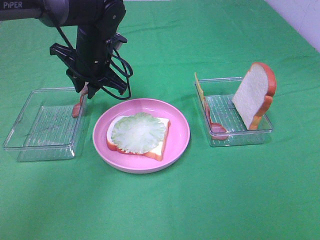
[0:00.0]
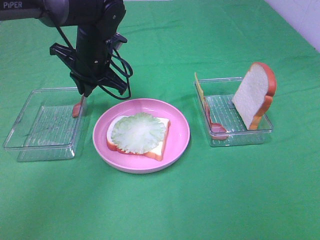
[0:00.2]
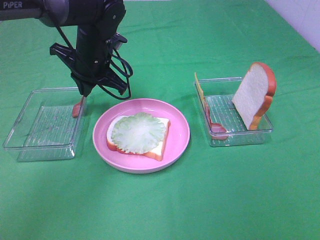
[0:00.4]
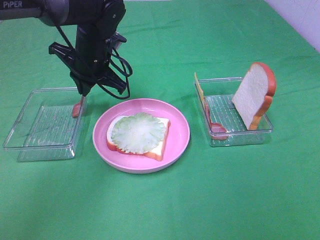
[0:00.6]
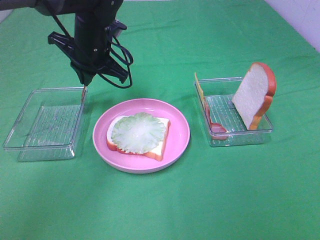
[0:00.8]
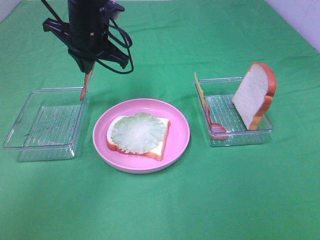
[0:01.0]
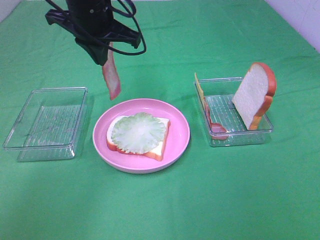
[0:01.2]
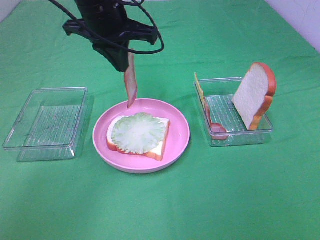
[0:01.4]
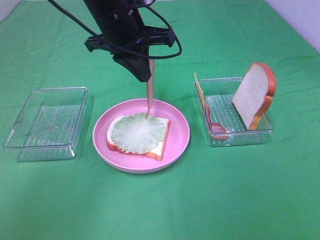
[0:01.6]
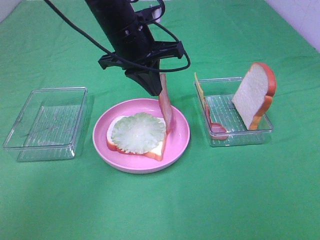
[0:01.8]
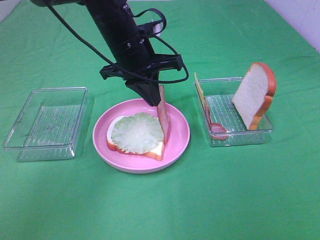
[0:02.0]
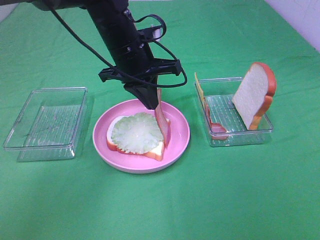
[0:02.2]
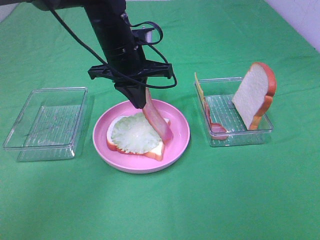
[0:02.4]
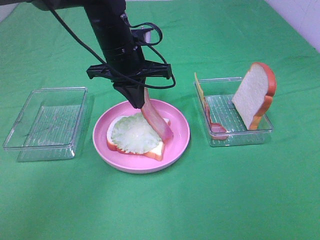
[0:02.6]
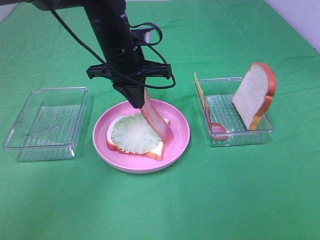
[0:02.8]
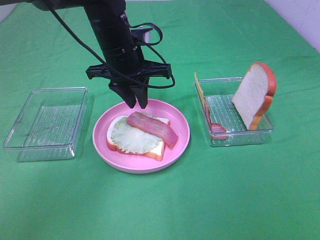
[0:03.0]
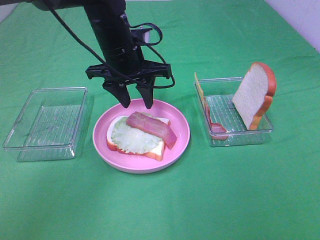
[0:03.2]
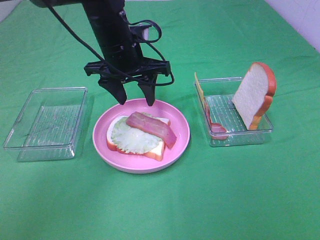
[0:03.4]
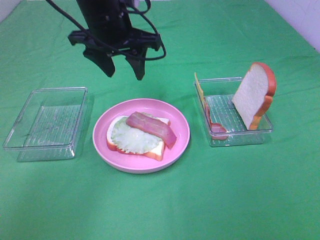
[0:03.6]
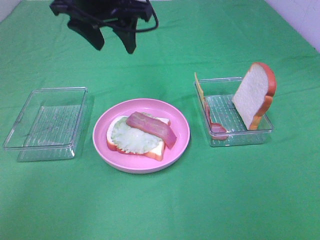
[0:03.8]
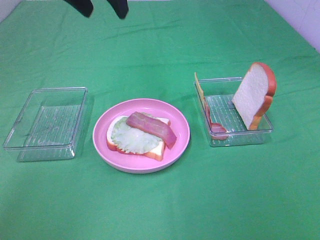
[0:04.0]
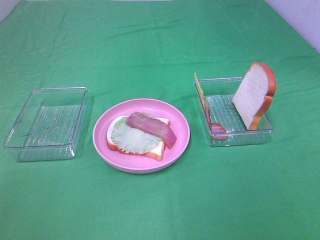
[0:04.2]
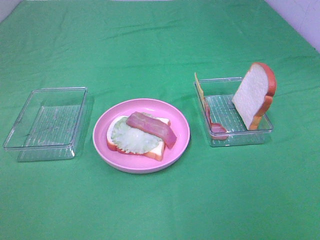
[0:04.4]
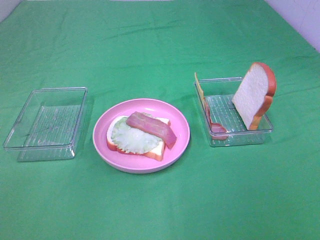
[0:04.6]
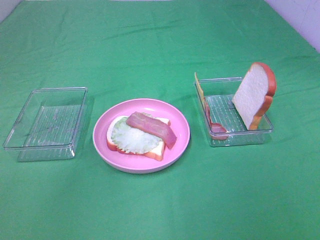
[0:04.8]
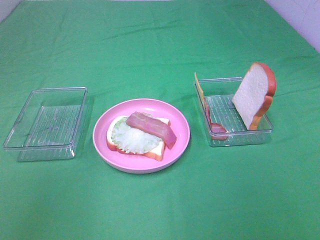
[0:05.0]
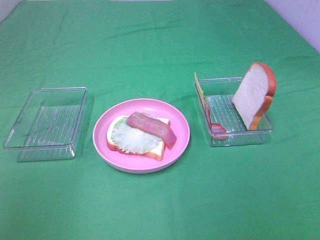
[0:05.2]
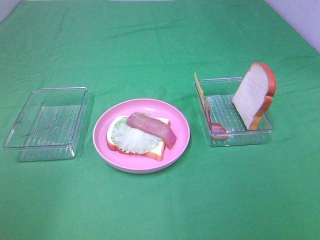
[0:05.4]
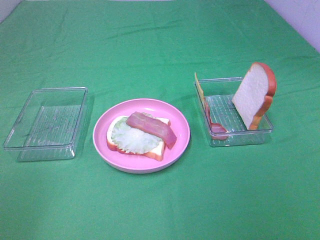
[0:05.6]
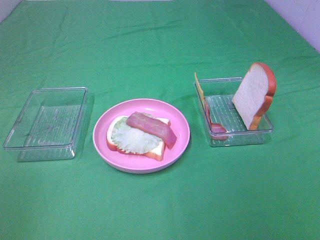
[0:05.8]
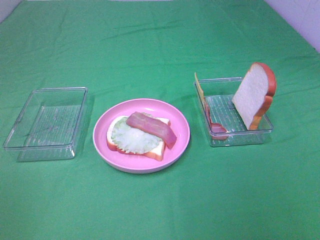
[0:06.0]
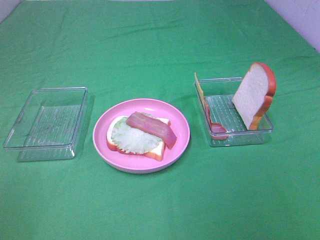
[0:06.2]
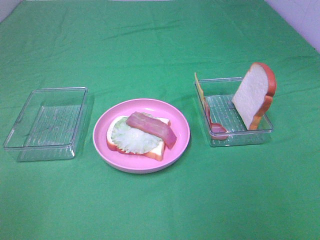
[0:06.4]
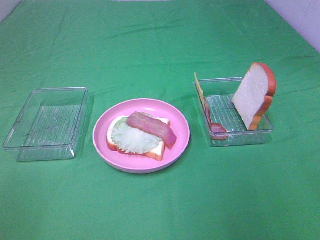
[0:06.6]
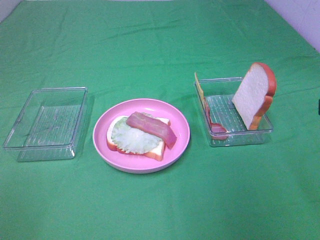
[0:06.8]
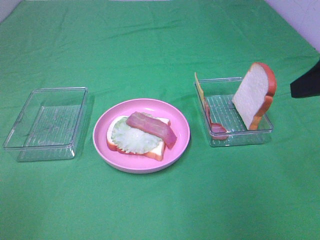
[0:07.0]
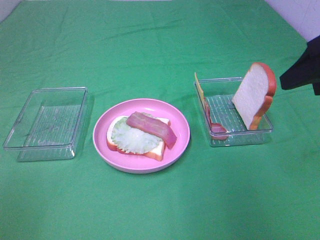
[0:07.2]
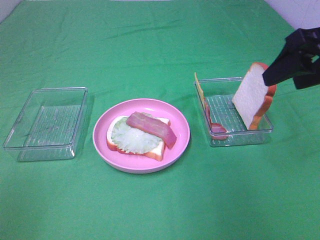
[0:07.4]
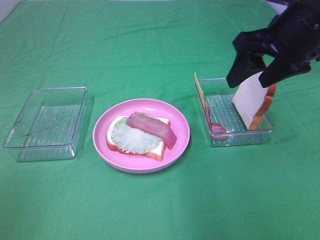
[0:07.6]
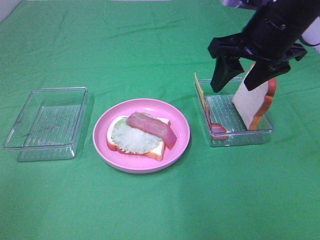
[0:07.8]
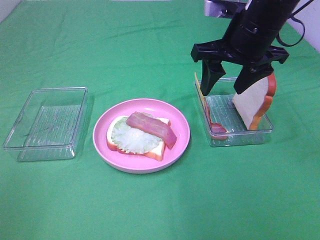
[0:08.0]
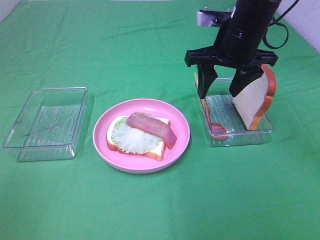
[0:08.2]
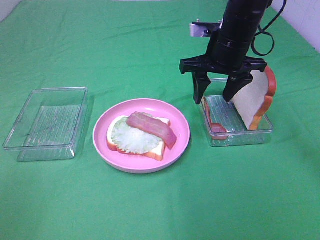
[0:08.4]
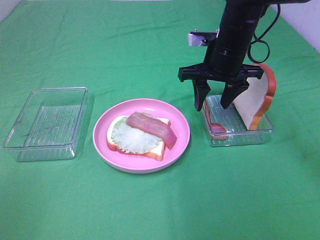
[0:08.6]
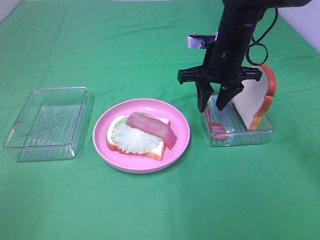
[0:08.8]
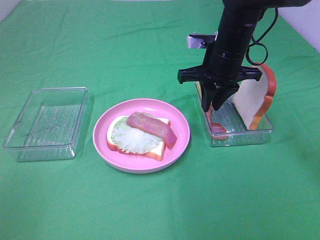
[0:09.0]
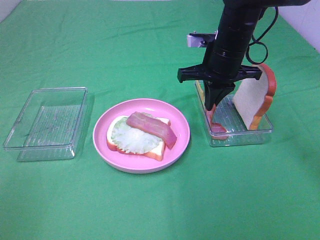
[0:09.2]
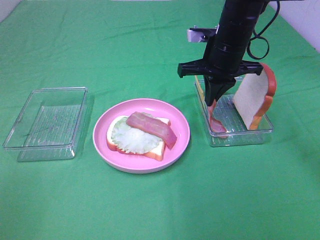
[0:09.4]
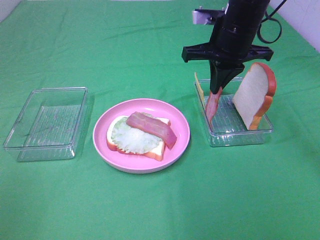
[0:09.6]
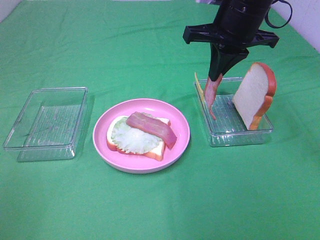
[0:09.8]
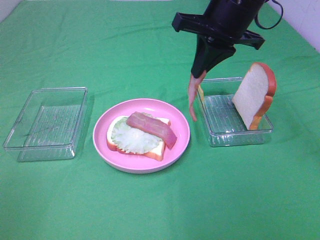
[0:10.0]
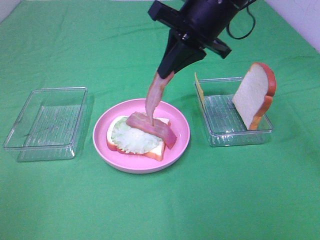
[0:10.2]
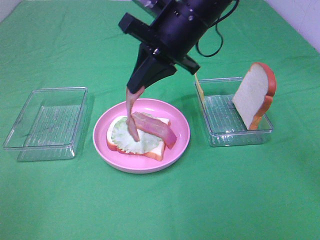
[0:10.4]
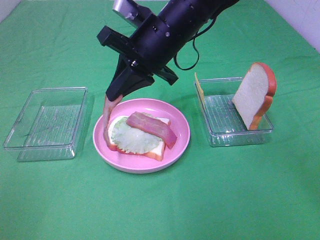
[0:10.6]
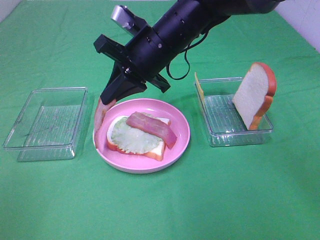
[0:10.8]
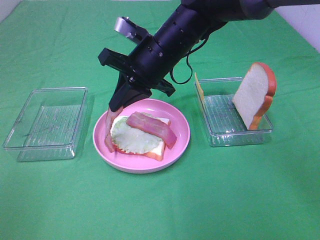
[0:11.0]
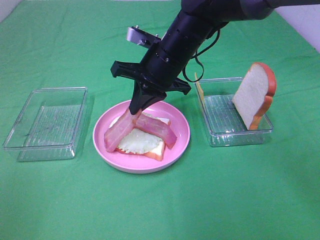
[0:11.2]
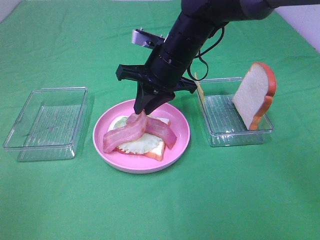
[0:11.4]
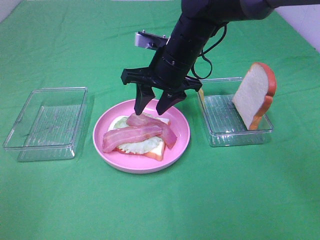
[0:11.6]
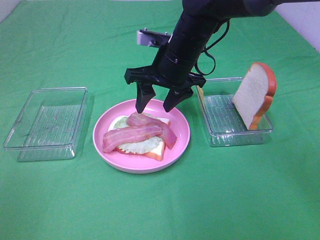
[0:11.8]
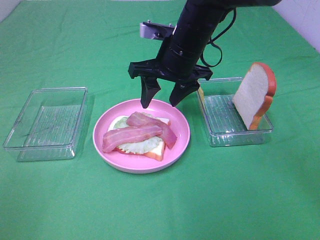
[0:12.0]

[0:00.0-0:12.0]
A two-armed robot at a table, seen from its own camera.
Task of the whole recording: Make sandwiches.
Step, 0:00.4 to 0:03.0: Left hand:place bacon on lettuce slice.
Step, 0:03.2 to 0:09.2: Right hand:grab the bacon.
Step, 0:09.4 to 0:11.6: Right hand:place bacon on bacon.
0:00.0 to 0:01.6: The left gripper moves upward and to the right, roughly 10 cm.
0:01.6 to 0:03.0: The left gripper is displaced downward by roughly 5 cm, and opens its fingers.
0:03.0 to 0:04.4: The left gripper goes roughly 35 cm upward and backward, and opens up.
0:06.0 to 0:07.6: The right gripper heads forward, covering about 30 cm.
0:07.6 to 0:09.0: The right gripper heads downward, forward and to the left, covering some 15 cm, and closes up.
0:09.0 to 0:10.4: The right gripper shifts some 10 cm to the left and upward.
0:10.4 to 0:12.0: The right gripper ends up some 5 cm from where it was, and opens its fingers.

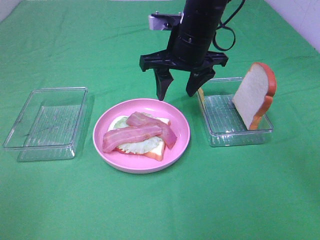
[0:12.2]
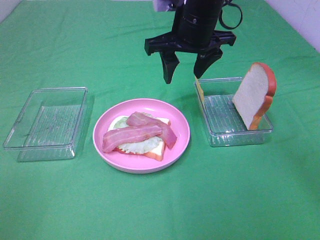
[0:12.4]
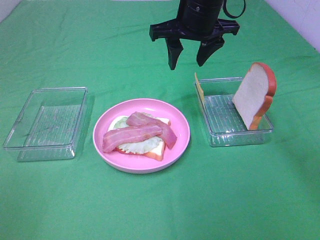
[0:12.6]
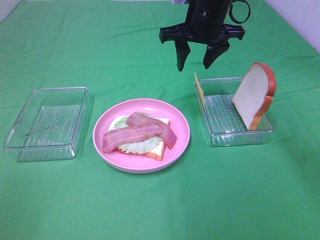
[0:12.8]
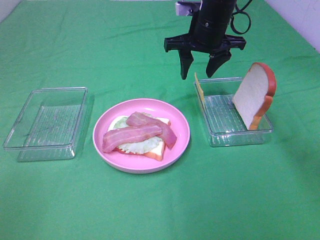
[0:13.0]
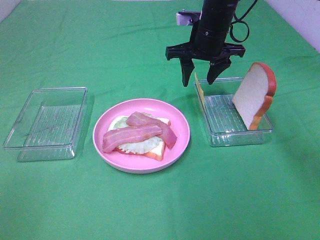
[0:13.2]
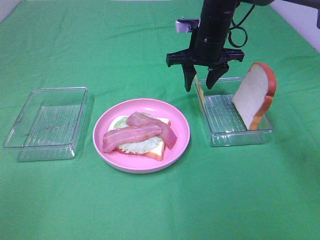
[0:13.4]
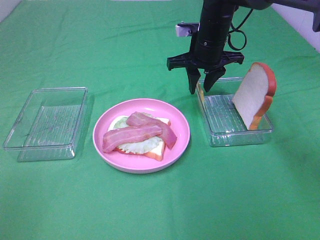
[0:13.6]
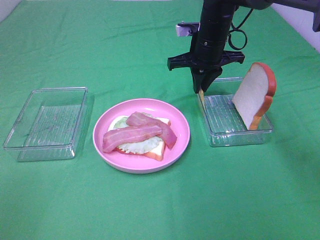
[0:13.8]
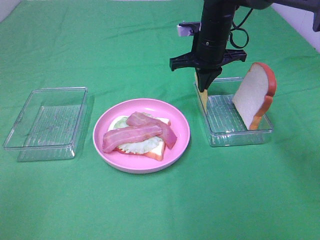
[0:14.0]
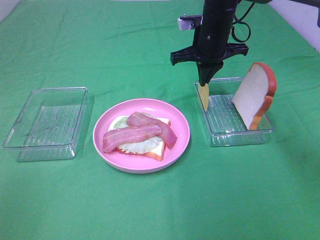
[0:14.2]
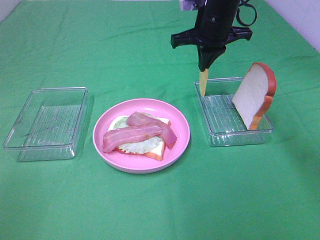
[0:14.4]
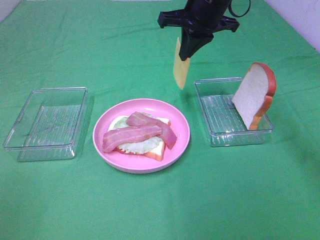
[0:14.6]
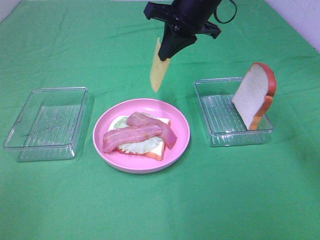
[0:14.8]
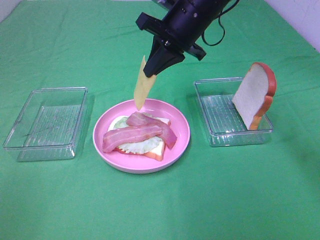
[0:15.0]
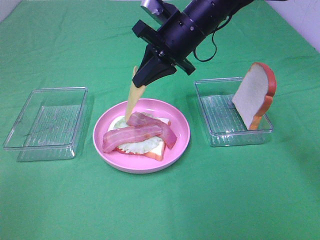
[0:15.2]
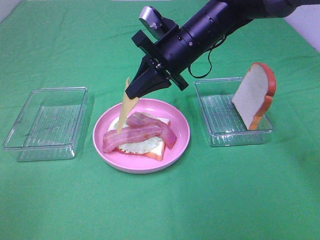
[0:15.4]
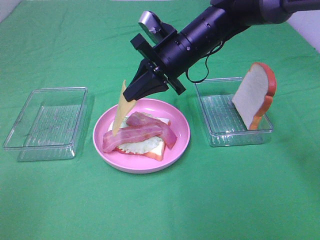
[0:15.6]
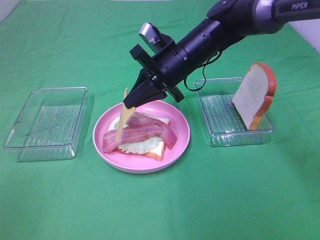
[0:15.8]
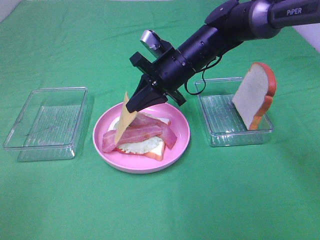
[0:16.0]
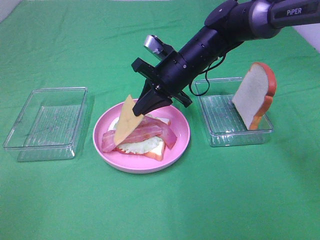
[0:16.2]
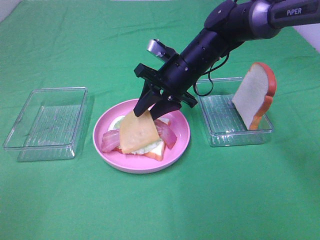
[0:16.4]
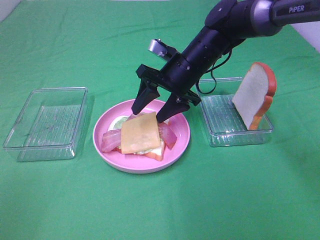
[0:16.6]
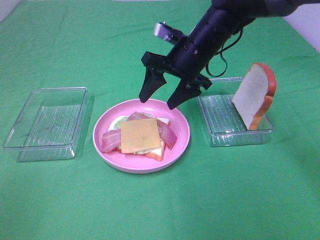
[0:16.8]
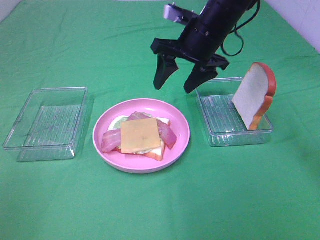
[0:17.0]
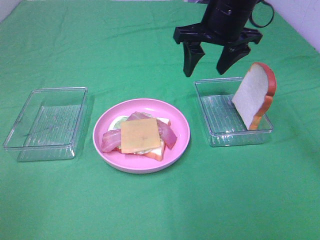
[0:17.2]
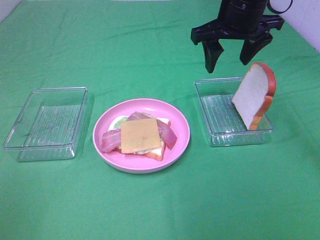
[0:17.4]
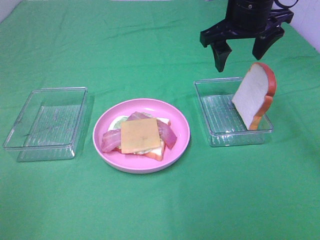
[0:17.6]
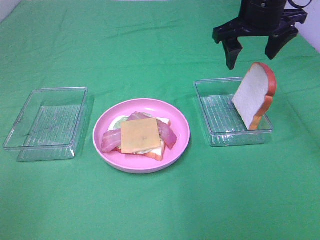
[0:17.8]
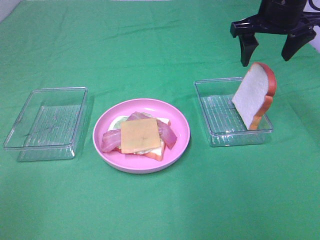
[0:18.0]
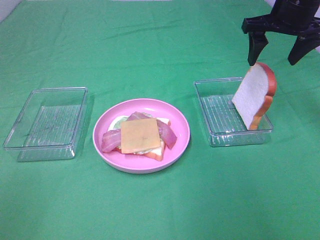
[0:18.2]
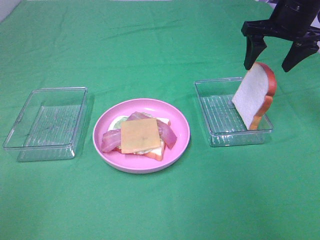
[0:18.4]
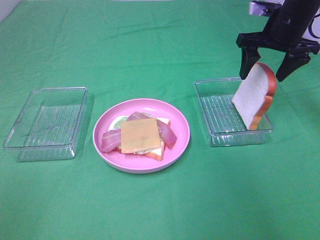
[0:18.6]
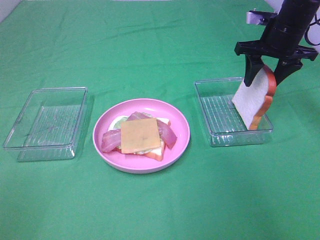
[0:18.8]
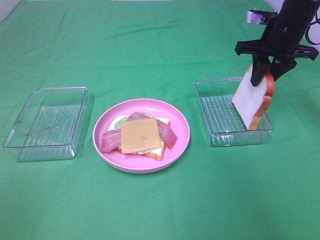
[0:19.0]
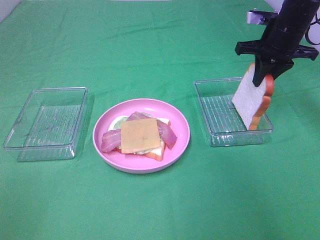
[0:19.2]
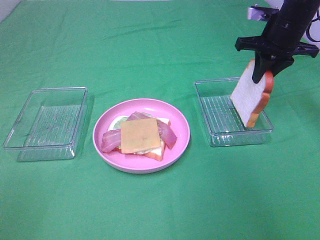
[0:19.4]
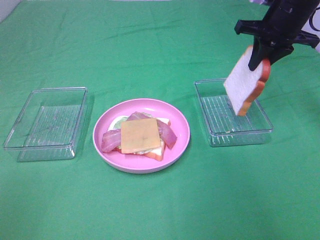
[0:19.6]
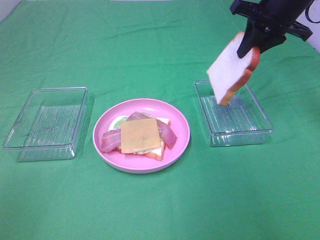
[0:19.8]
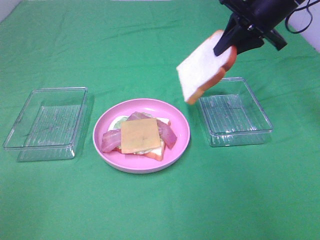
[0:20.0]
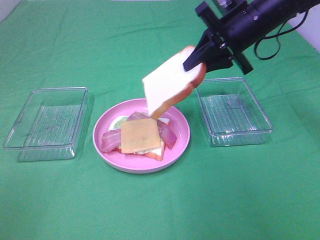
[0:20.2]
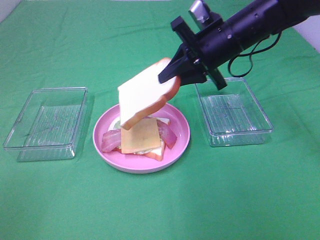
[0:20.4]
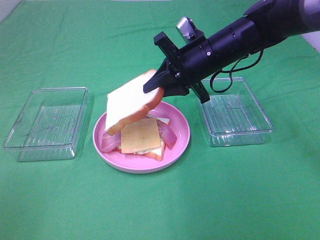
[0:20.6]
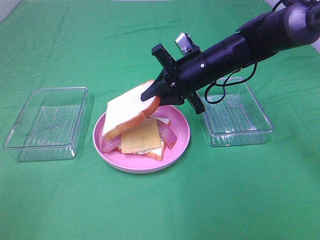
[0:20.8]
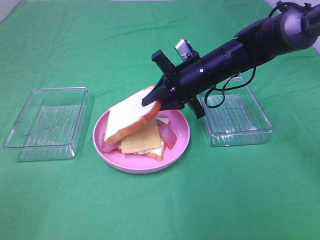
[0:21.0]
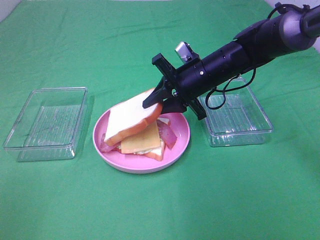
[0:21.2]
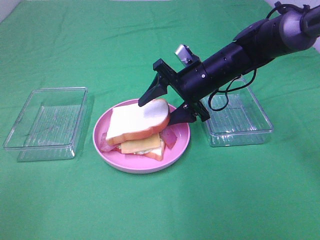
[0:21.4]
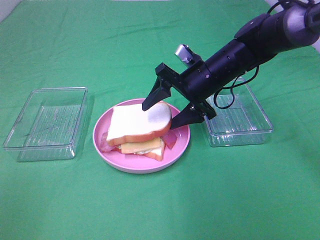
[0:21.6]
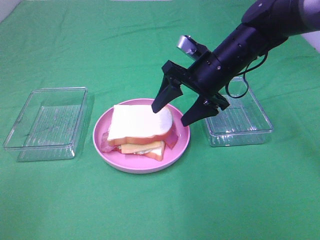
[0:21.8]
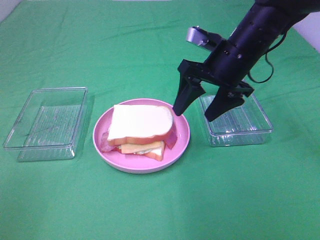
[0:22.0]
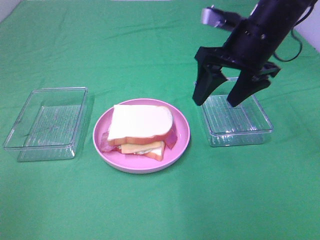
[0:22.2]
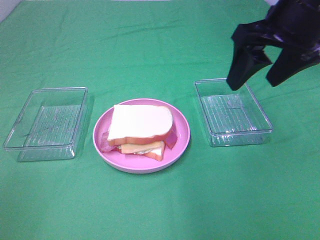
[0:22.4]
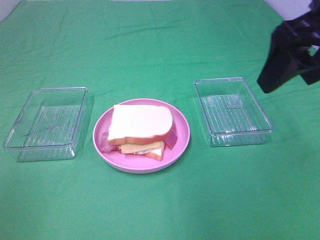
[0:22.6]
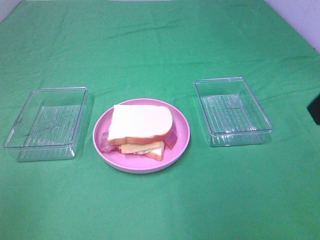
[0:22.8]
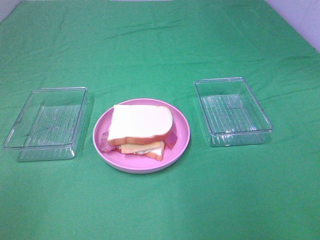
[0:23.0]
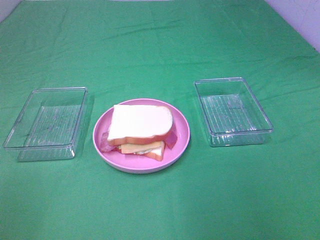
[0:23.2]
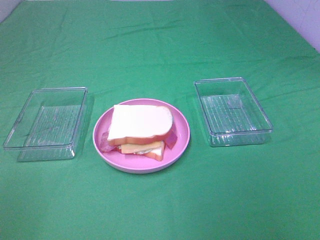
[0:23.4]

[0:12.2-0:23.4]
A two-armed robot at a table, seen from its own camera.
Task of the whole recording: Make sandwiches.
Step, 0:12.2 to 0:14.0: Right hand:grab the cheese slice.
Step, 0:14.2 to 0:16.6: Right hand:place the cheese slice on top of the bacon.
Step, 0:16.8 to 0:19.2: Right hand:grab the bread slice.
Step, 0:19.4 to 0:21.8: Right hand:place the bread slice on the cheese slice.
0:12.2 to 0:13.8: The right gripper is displaced forward by roughly 10 cm, and closes up.
0:13.8 to 0:15.4: The right gripper is displaced backward by some 5 cm, and reaches about 10 cm upward, then returns.
0:15.4 to 0:17.0: The right gripper opens.
0:17.0 to 0:18.6: The right gripper goes approximately 15 cm to the right.
0:18.6 to 0:20.2: The right gripper goes some 10 cm to the left, and closes its fingers.
0:20.2 to 0:21.8: The right gripper travels downward by about 5 cm, and opens up.
0:21.8 to 0:23.4: The right gripper moves backward and to the right, about 40 cm.
